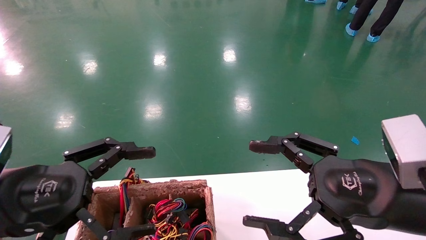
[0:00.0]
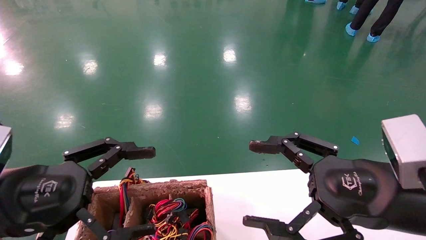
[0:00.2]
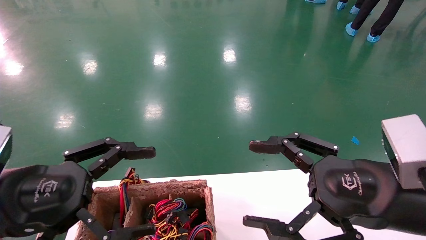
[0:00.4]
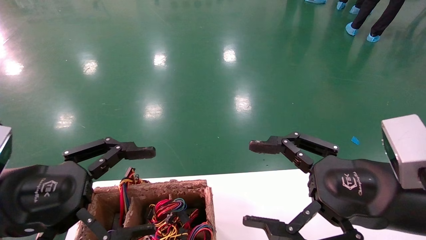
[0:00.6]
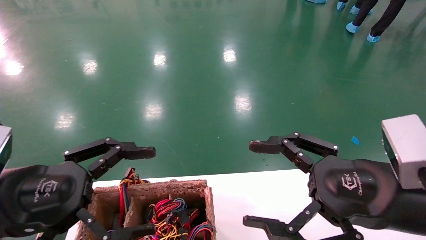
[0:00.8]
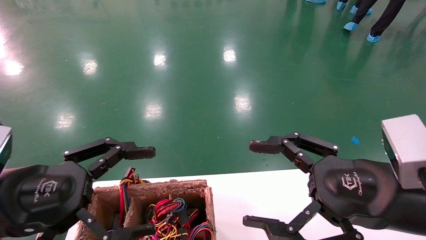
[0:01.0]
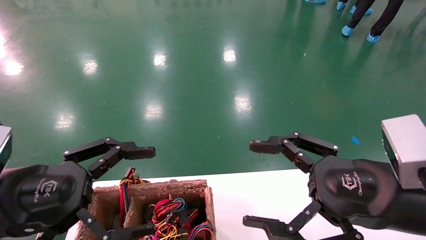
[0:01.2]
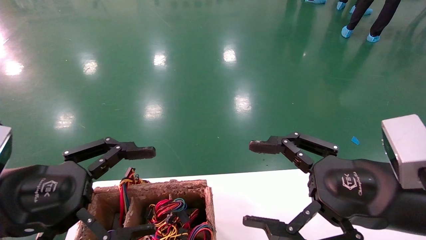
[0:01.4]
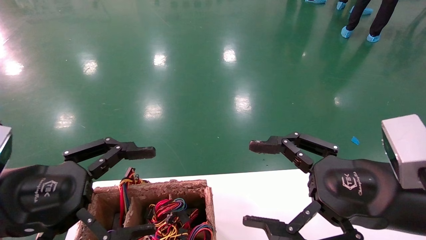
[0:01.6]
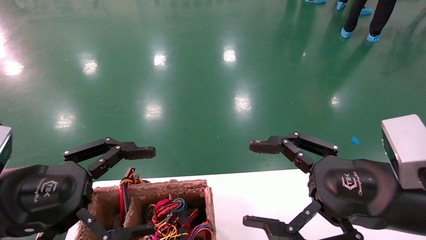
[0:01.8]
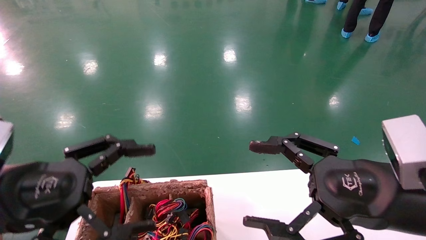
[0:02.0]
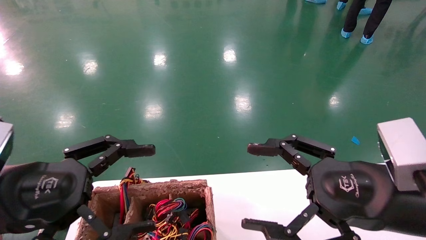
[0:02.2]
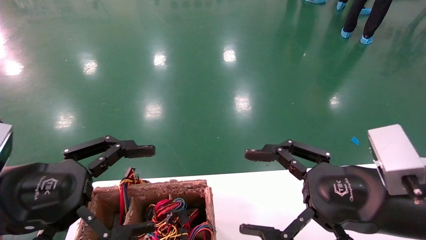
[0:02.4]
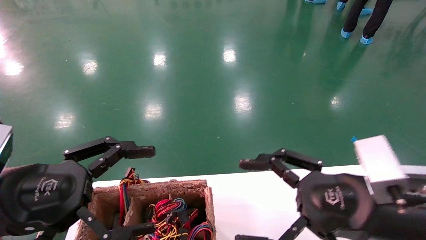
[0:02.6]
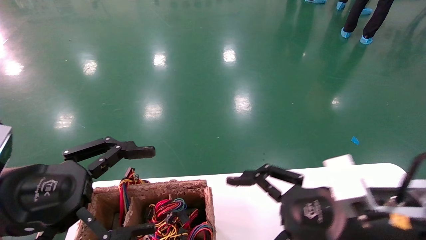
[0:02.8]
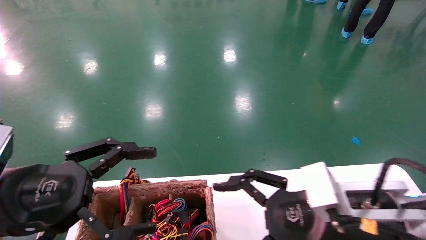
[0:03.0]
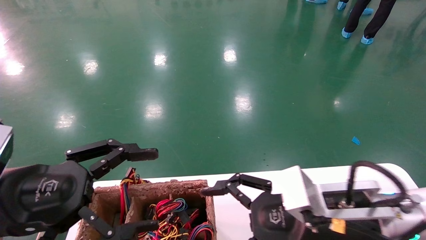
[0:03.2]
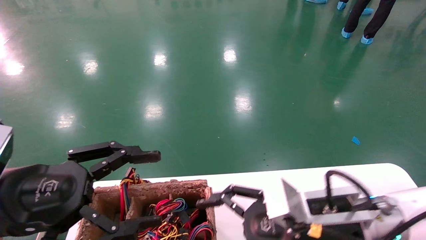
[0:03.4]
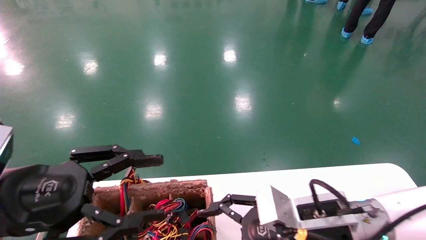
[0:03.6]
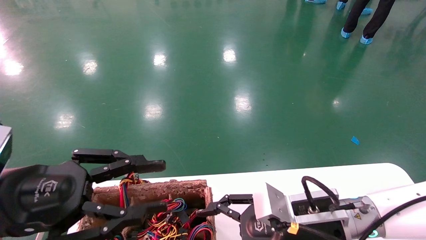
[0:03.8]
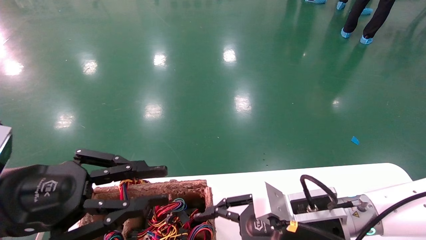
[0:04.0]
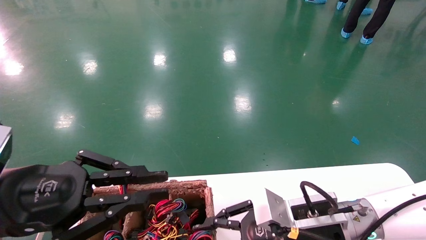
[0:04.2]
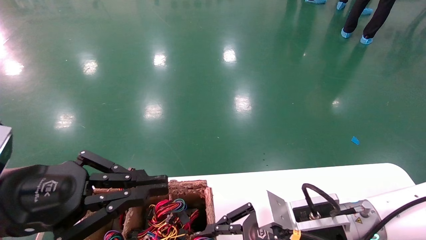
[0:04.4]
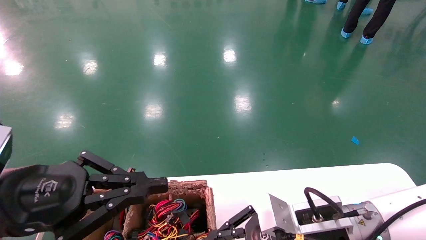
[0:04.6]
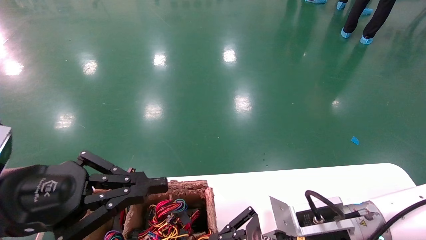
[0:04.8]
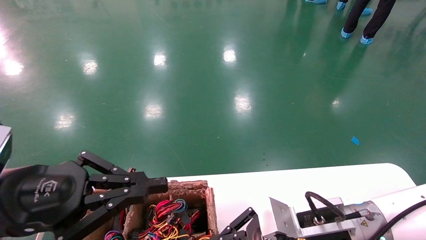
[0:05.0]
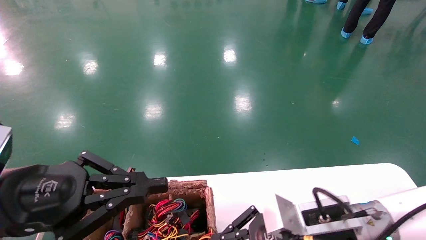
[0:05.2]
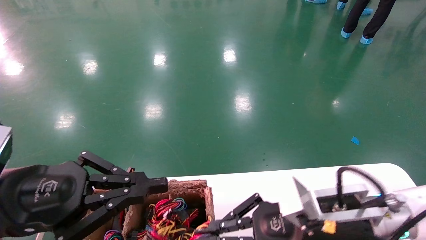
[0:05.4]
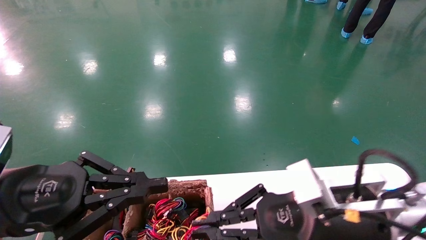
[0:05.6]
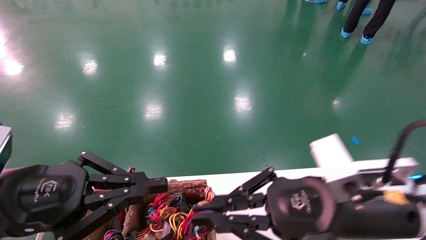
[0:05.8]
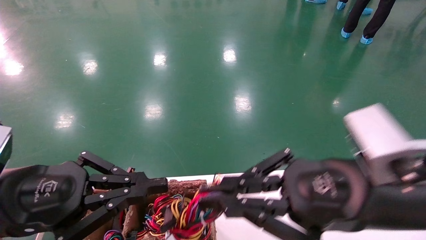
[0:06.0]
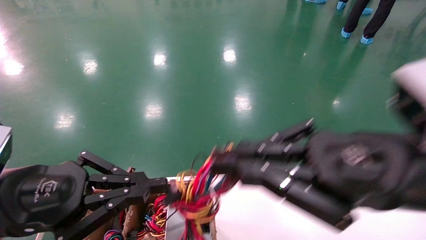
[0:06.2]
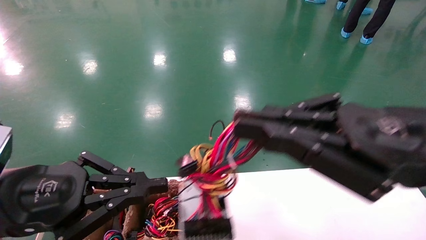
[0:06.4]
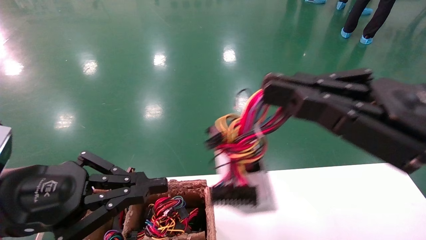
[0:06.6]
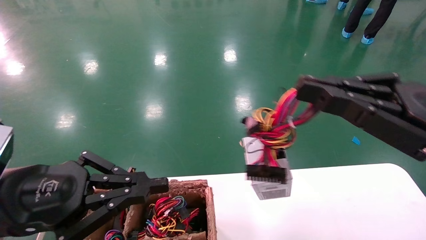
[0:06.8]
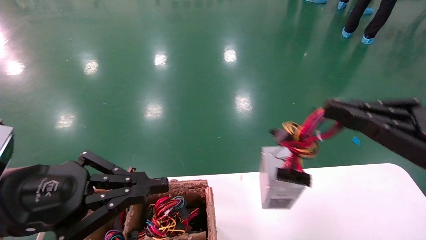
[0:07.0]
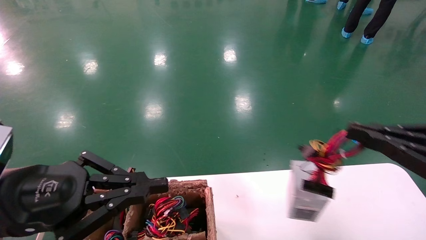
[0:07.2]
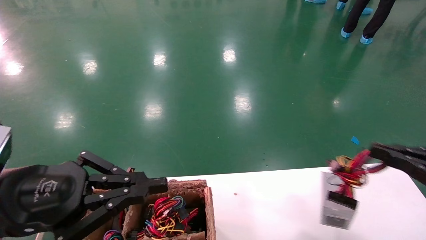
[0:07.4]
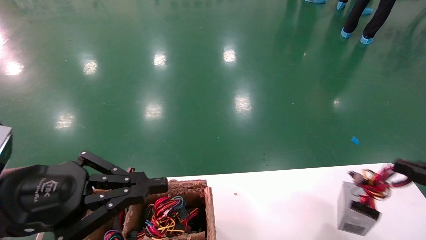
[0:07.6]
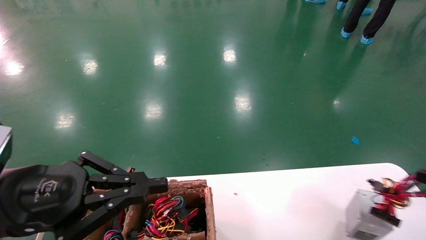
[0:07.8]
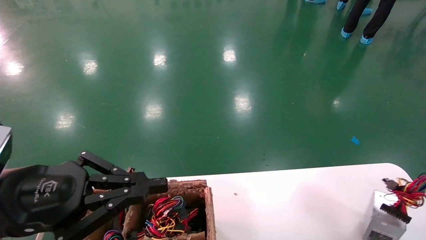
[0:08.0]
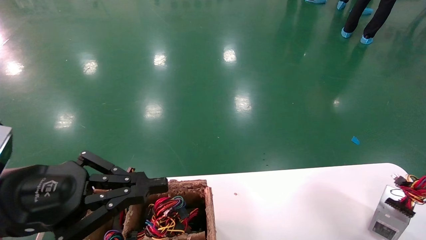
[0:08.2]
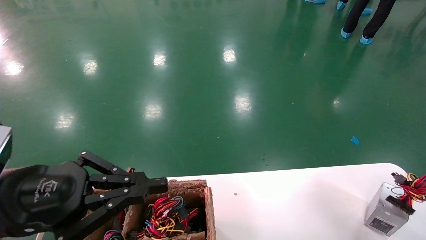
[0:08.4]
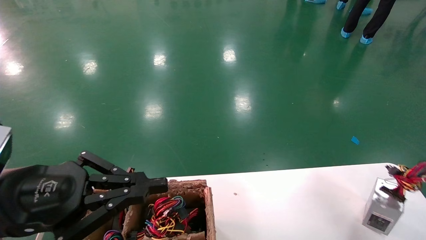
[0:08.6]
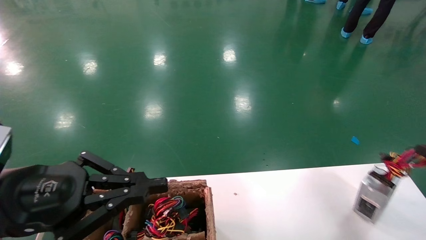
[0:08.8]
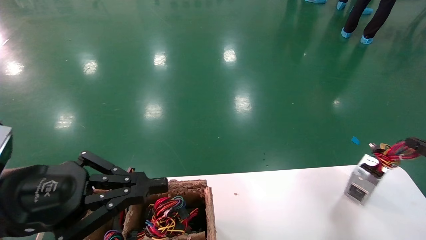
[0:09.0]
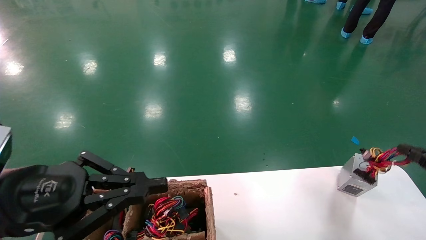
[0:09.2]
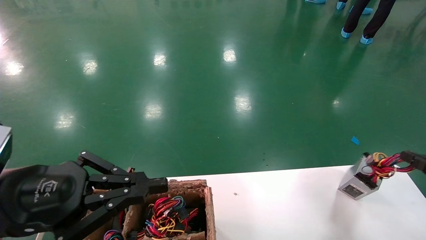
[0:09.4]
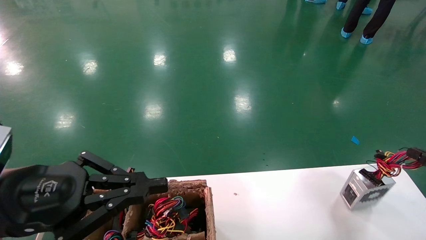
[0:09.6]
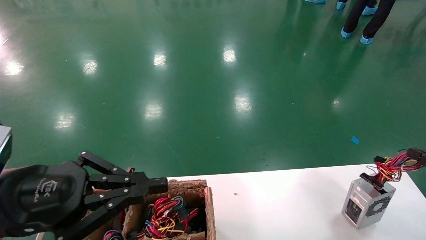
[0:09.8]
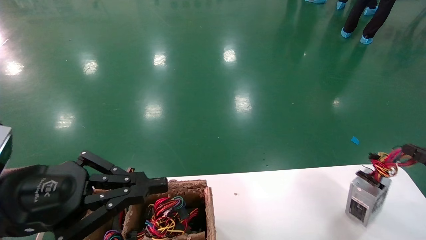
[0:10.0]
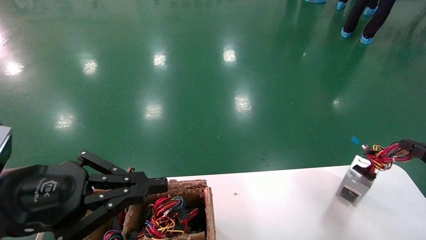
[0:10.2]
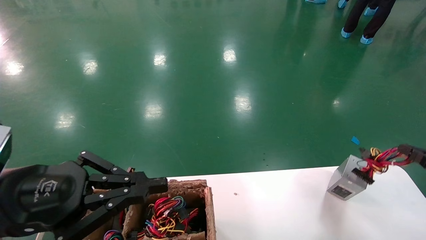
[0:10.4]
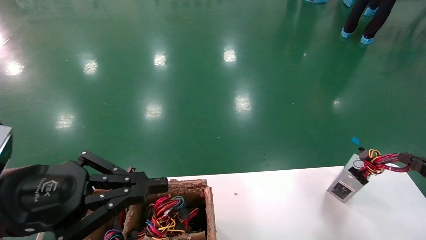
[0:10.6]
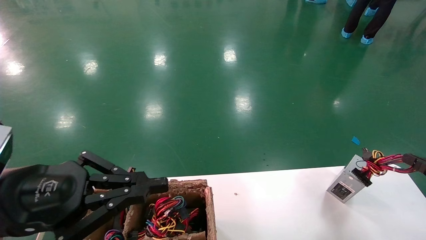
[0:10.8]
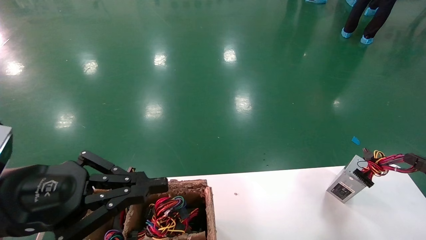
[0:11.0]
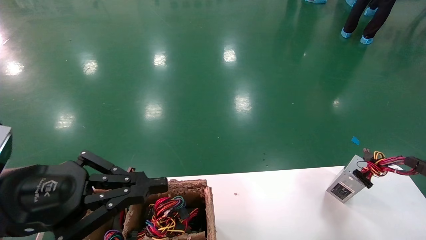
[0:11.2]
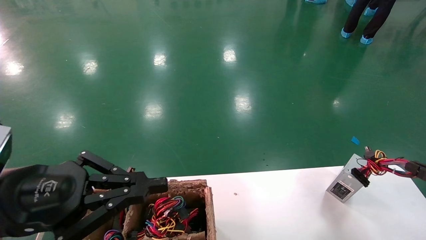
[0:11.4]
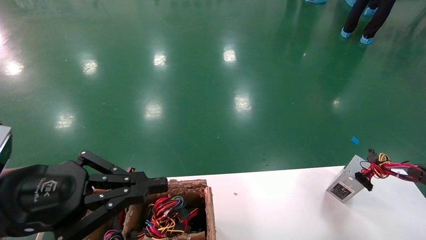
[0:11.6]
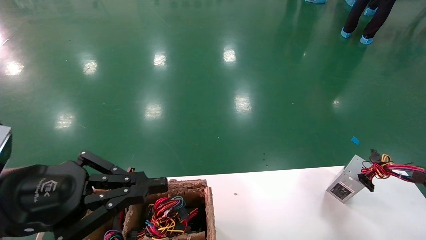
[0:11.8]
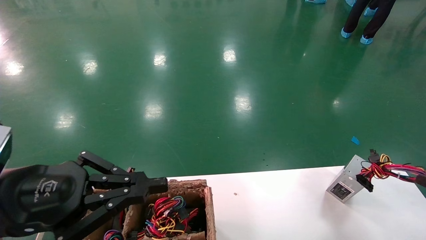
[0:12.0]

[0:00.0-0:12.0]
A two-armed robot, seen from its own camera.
Step, 0:02.6 to 0:05.0: Grab the main unit power supply from the containment box.
Step, 0:05.2 to 0:11.4: Place the main unit power supply in the designated area.
0:00.0 to 0:01.6: Both grippers stay about where they are.
0:01.6 to 0:03.0: The right gripper ends up roughly 10 cm from where it was.
0:03.0 to 0:04.4: The left gripper closes its fingers. The right gripper travels downward by about 5 cm, and closes its fingers.
0:04.4 to 0:06.0: The right gripper goes about 15 cm upward and backward.
0:06.0 to 0:07.6: The right gripper is displaced to the right by about 25 cm.
0:07.6 to 0:09.0: The right gripper is displaced forward and to the right by some 10 cm.
0:09.0 to 0:10.4: Both grippers stay put.
0:10.4 to 0:12.0: The right gripper opens.

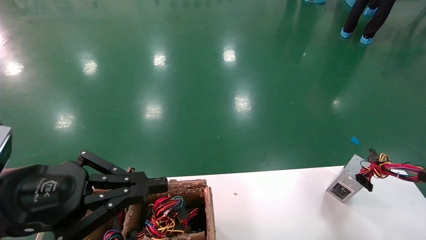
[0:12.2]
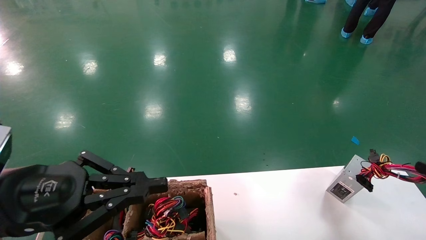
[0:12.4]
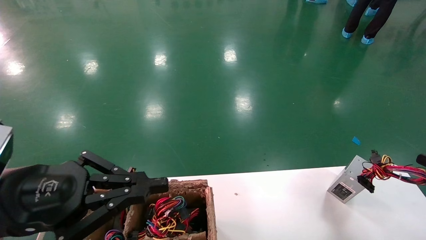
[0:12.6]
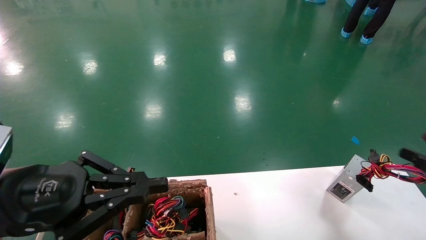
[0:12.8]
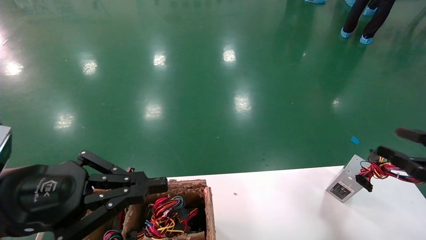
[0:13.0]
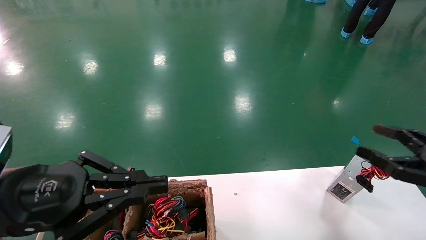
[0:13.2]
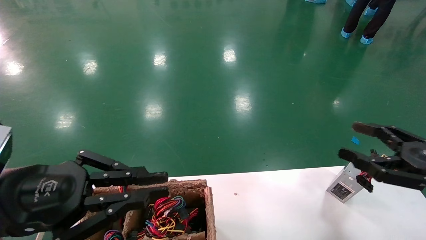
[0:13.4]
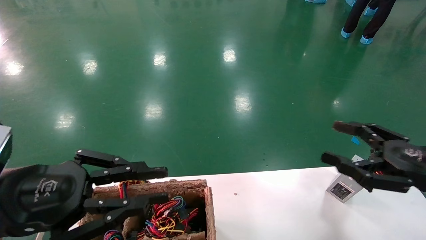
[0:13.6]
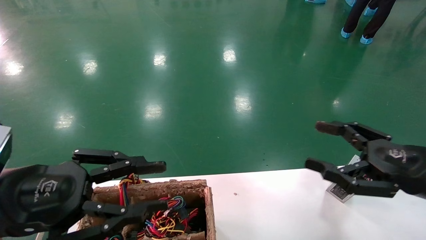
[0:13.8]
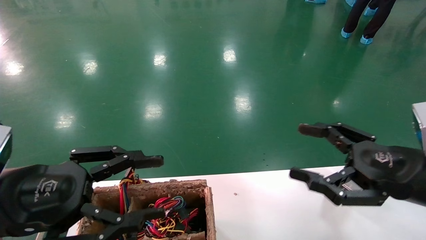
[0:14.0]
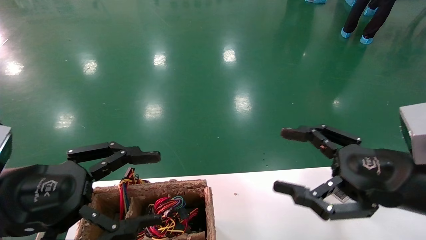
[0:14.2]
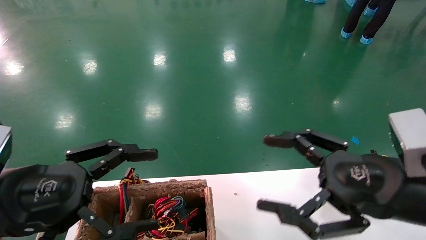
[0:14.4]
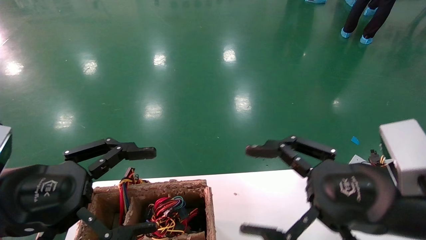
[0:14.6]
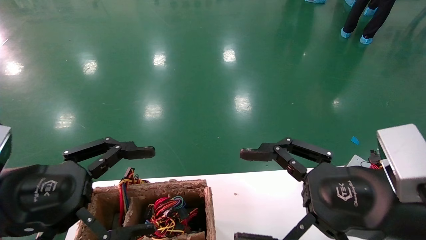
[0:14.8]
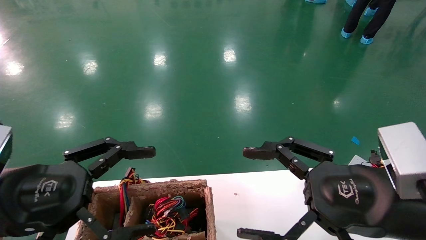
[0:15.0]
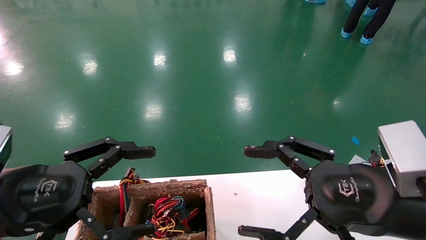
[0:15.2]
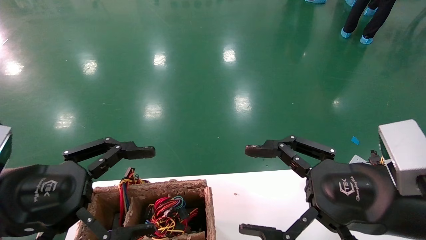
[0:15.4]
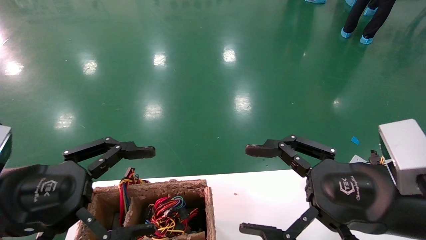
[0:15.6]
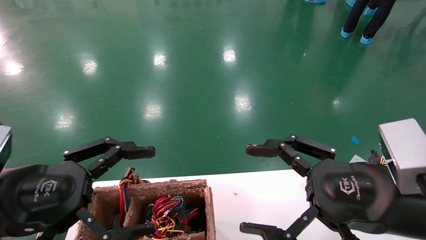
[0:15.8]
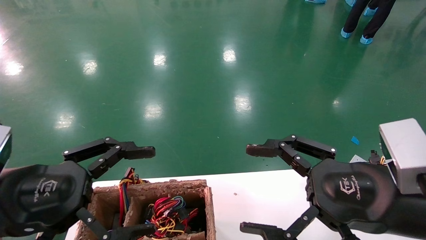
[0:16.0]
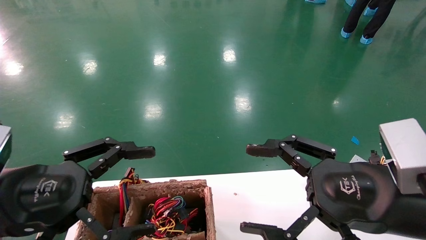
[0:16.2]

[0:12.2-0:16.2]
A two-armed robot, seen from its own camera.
0:12.2 to 0:13.6: The right gripper goes approximately 20 cm to the left and upward, and opens its fingers.
0:13.6 to 0:14.8: The left gripper opens. Meanwhile the right gripper is displaced to the left by approximately 15 cm.
0:14.8 to 0:16.2: Both grippers stay put.
